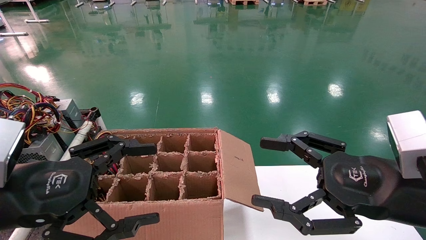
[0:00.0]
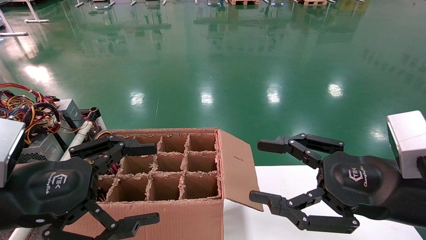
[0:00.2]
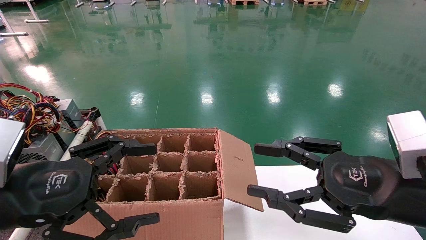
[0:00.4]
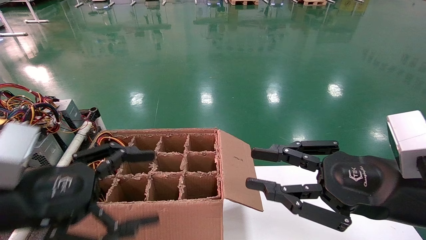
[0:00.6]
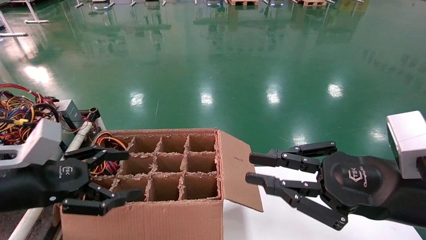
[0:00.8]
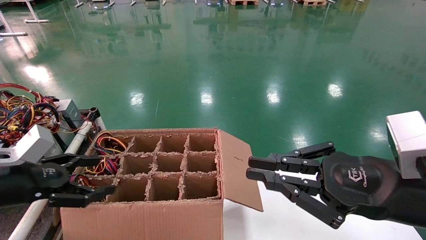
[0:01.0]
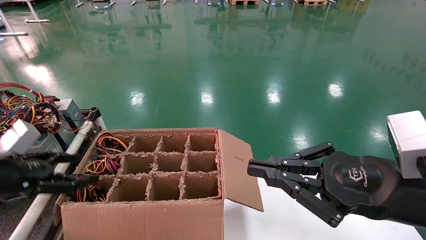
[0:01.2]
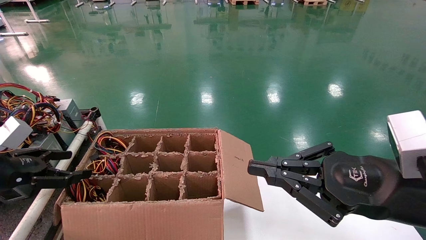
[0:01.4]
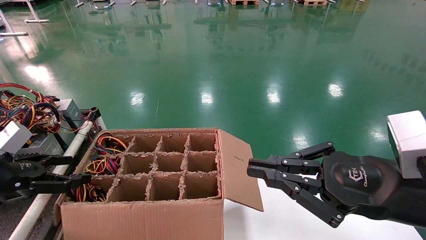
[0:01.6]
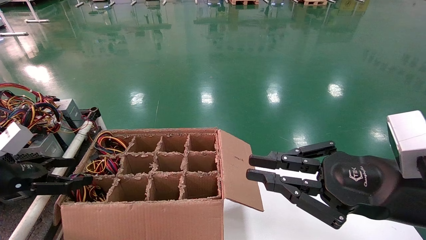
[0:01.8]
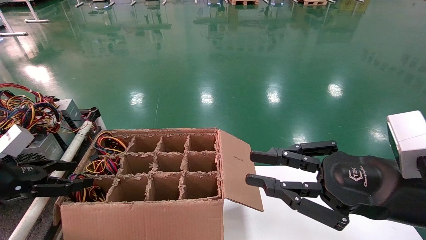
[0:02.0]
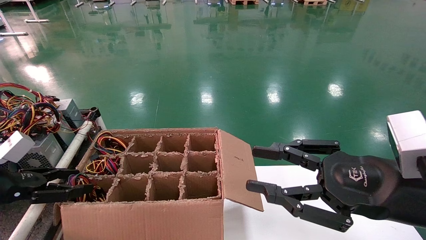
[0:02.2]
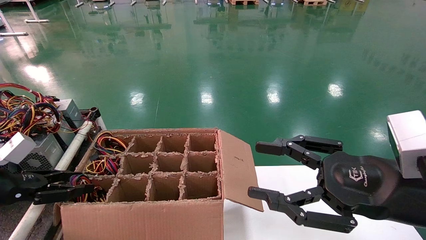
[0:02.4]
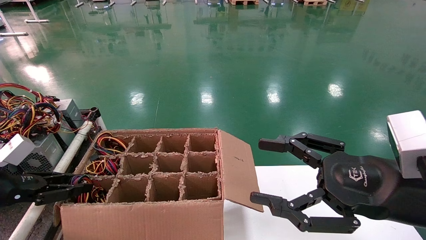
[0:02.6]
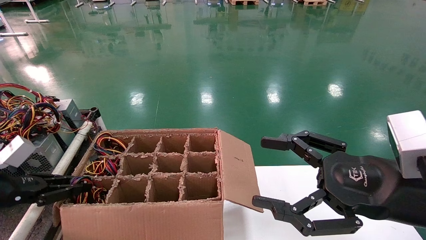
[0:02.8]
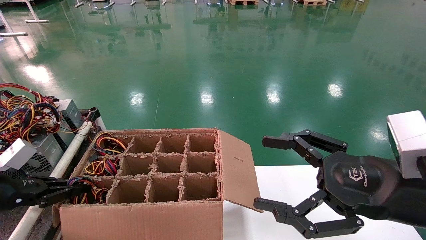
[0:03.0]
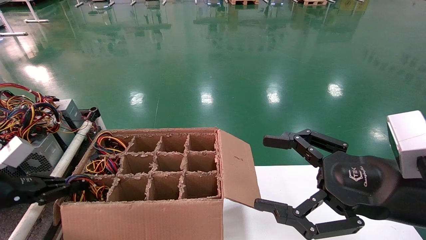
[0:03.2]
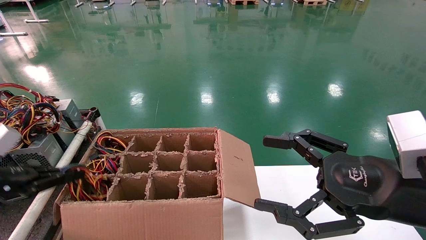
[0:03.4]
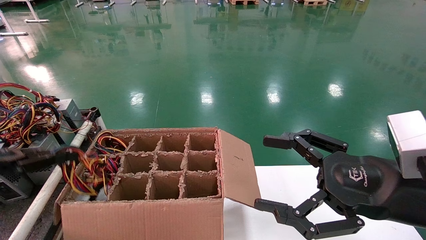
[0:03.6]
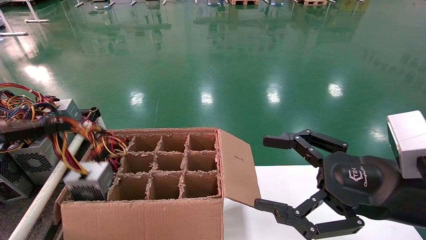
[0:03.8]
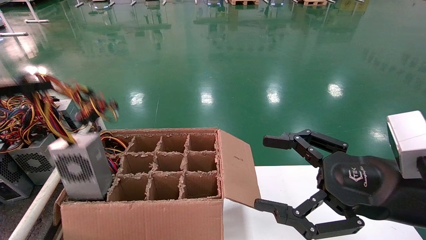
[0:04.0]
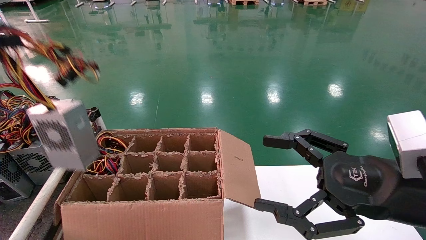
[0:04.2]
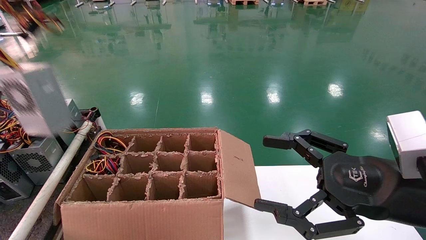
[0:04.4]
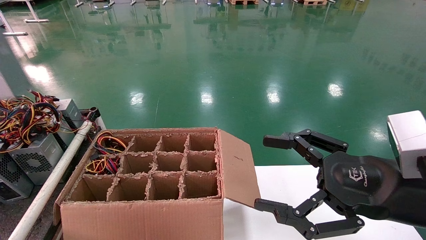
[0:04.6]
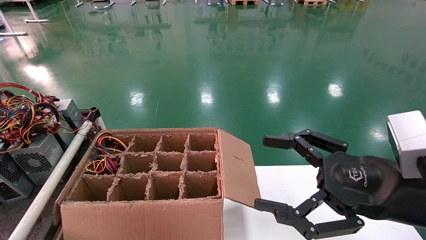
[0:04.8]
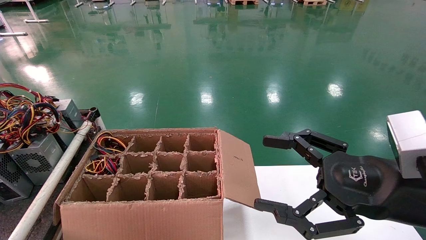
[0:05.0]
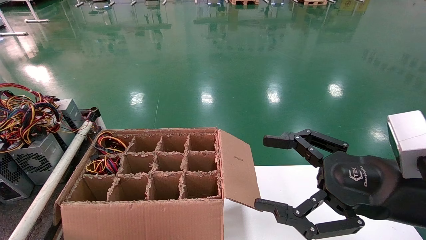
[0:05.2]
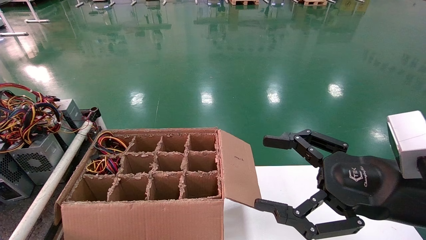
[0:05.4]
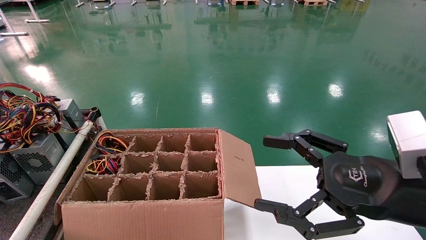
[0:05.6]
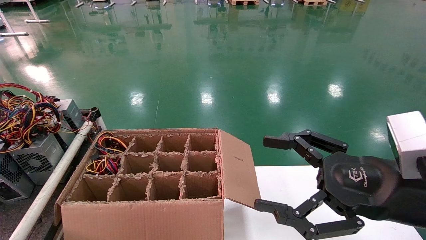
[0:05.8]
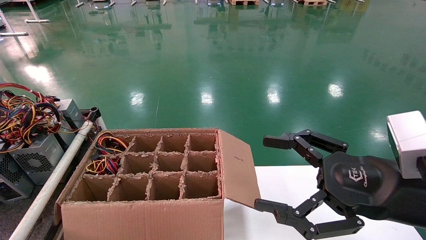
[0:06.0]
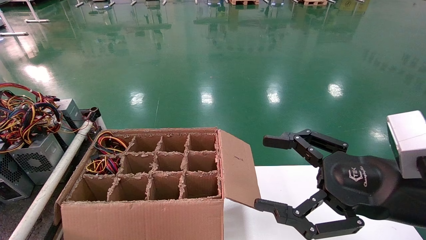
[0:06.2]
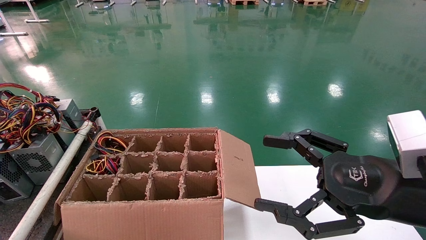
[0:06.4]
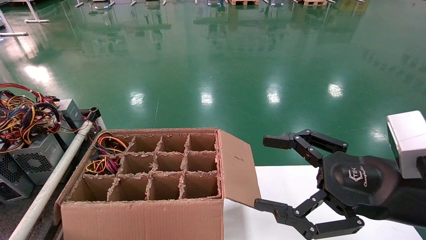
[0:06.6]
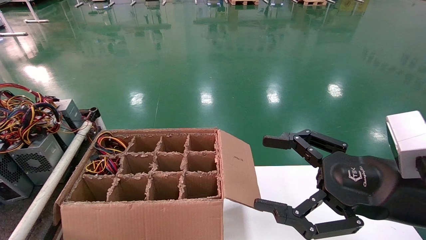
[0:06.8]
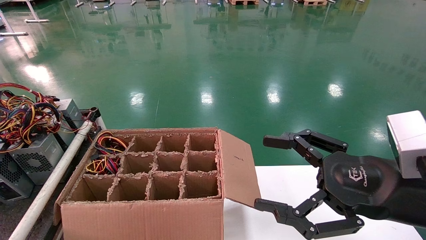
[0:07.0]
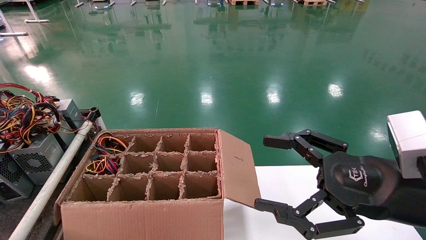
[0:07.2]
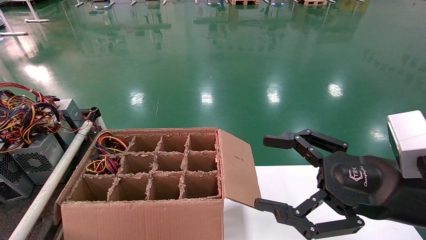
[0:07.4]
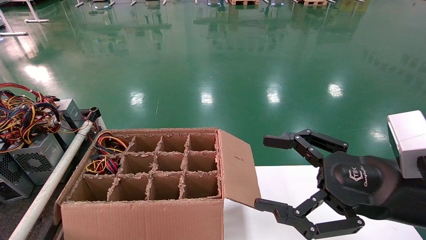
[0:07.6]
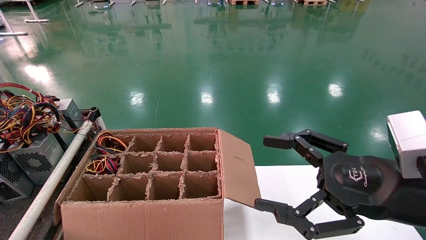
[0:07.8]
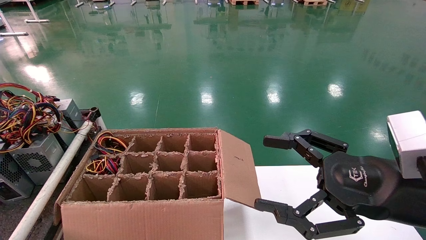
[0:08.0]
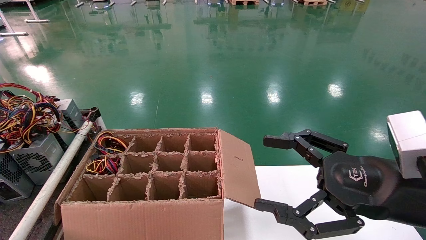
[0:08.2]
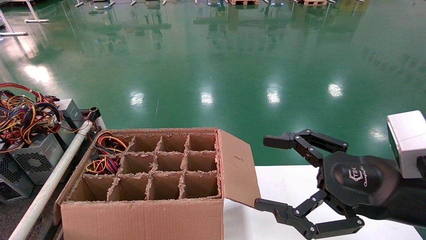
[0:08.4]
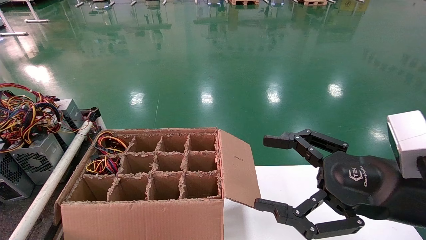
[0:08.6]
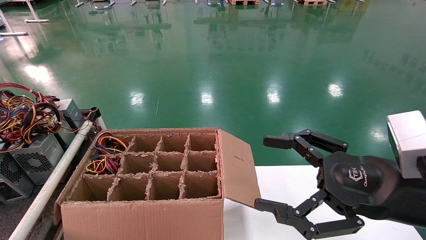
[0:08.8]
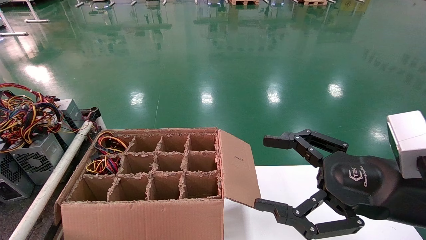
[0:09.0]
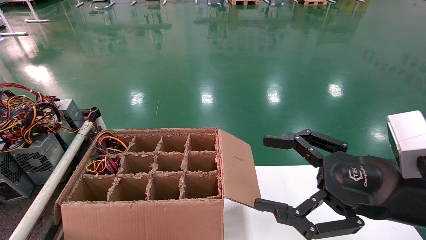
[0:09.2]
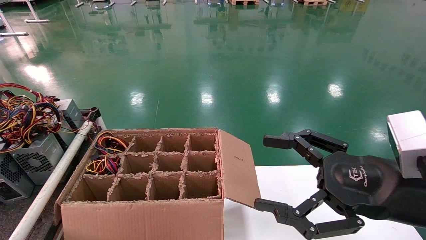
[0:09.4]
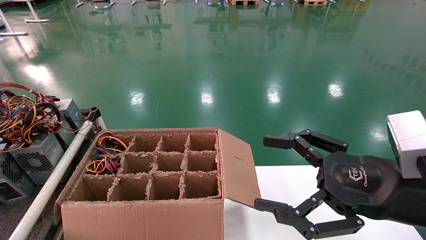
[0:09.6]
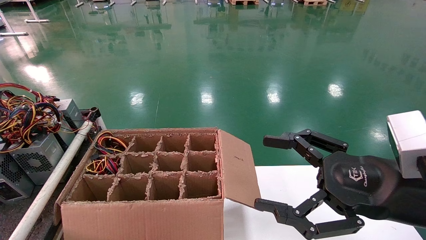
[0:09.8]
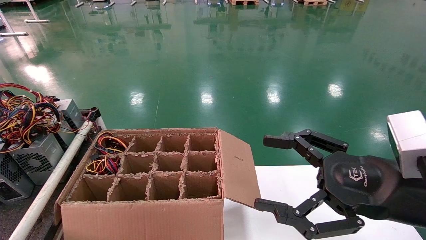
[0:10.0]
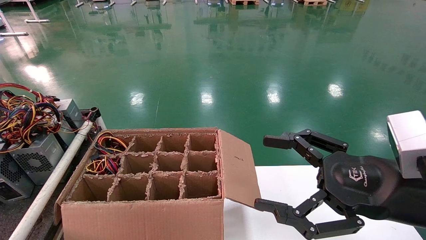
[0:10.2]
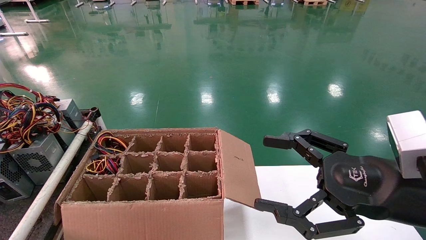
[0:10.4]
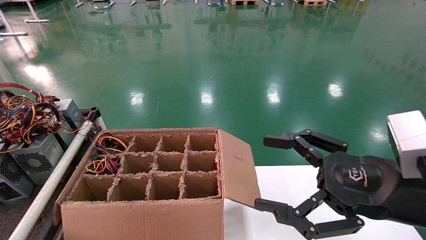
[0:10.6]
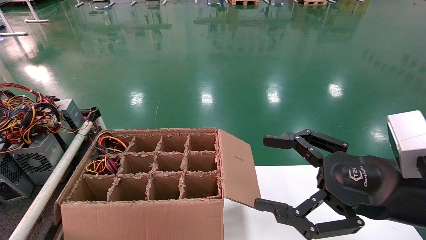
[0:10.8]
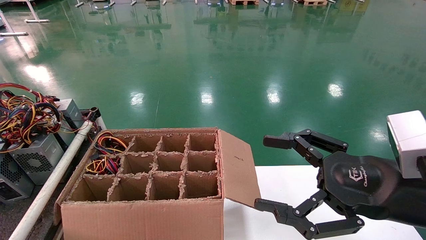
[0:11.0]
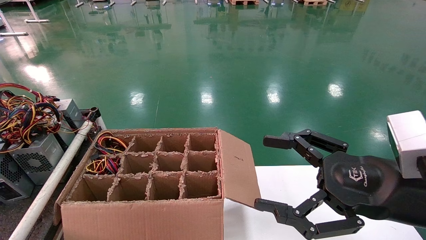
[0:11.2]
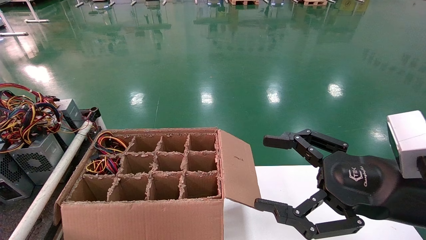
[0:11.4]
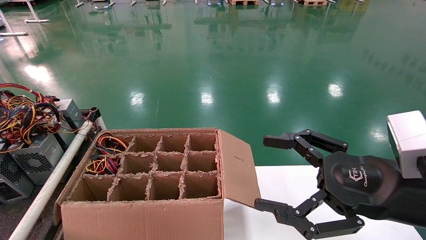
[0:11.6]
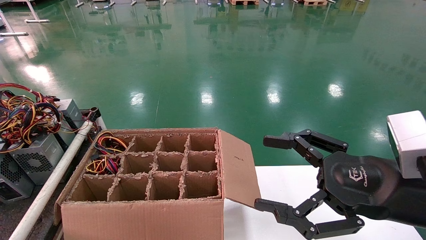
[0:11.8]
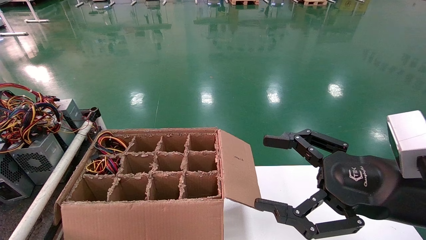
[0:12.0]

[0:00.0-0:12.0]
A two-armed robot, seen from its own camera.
Step, 0:01.0 to 0:03.4: Grab and lift the power supply from the large box.
Step, 0:03.6 to 0:11.2: Place the power supply on the operating table.
0:00.0 to 0:01.6: The right gripper closes up, while the left gripper moves to the left and forward, some 20 cm.
0:01.6 to 0:03.0: The right gripper opens, while the left gripper closes.
0:03.0 to 0:04.4: The left gripper moves upward, roughly 30 cm.
0:04.4 to 0:06.0: The left gripper travels to the left and backward by some 30 cm.

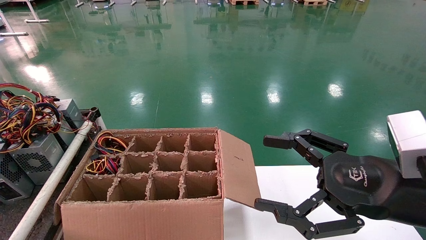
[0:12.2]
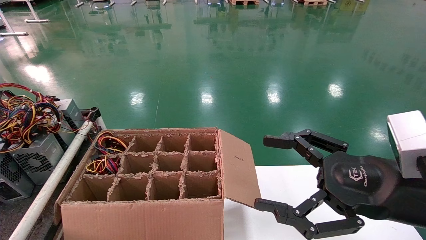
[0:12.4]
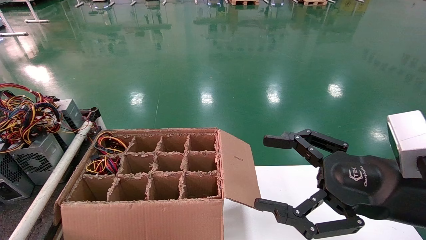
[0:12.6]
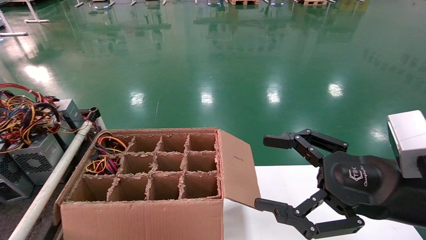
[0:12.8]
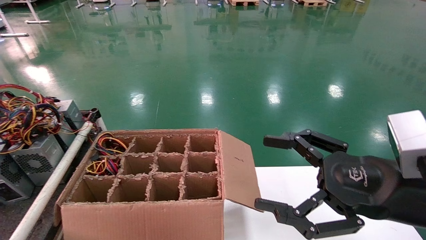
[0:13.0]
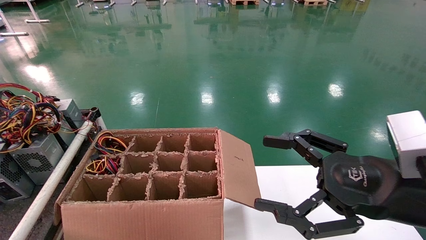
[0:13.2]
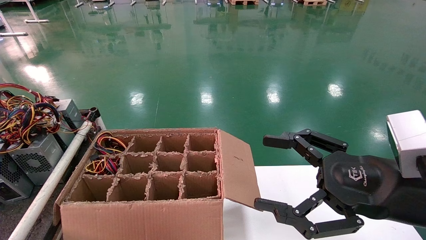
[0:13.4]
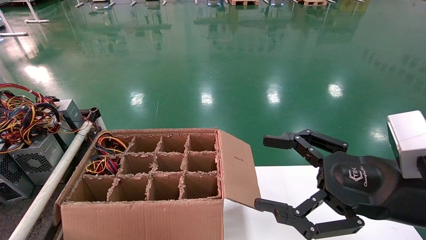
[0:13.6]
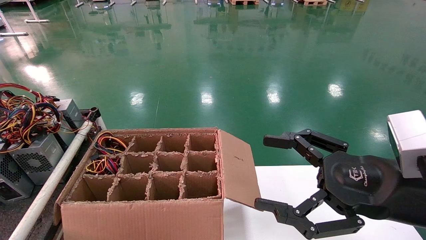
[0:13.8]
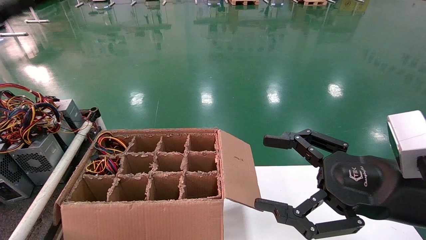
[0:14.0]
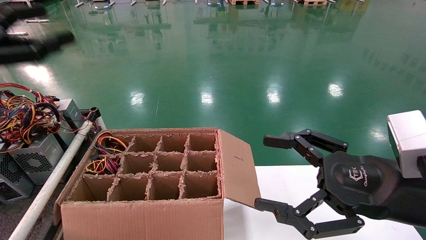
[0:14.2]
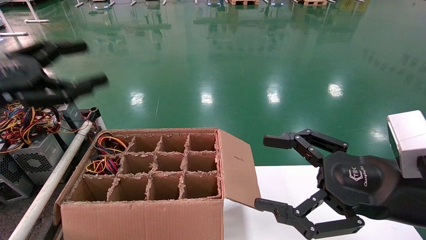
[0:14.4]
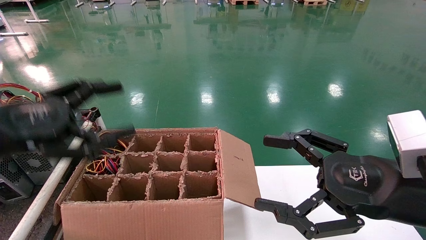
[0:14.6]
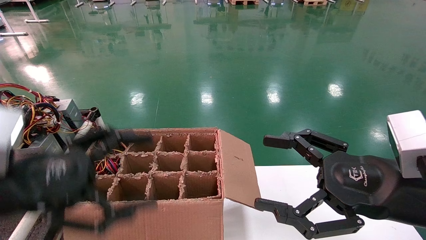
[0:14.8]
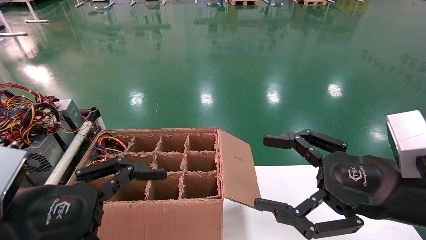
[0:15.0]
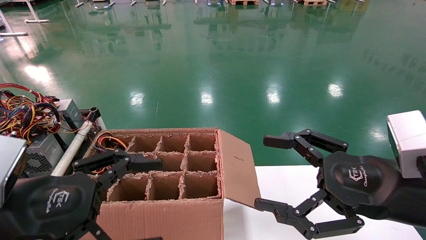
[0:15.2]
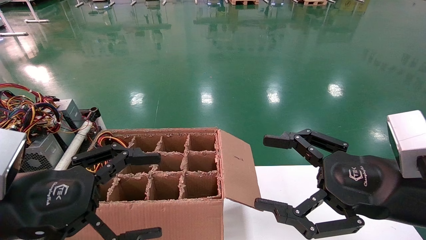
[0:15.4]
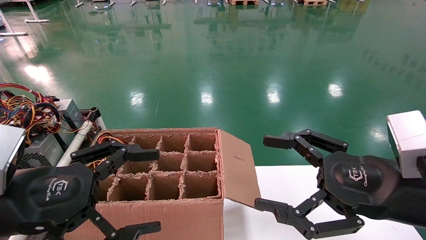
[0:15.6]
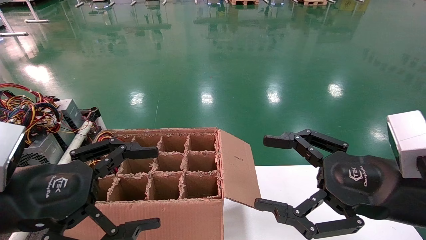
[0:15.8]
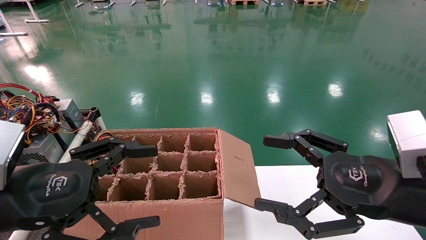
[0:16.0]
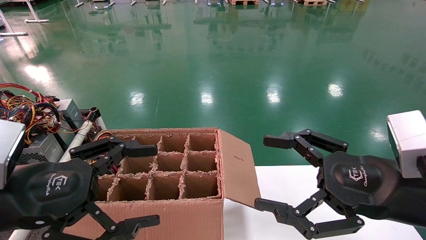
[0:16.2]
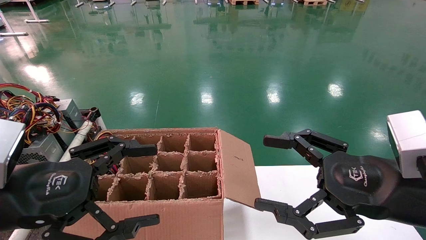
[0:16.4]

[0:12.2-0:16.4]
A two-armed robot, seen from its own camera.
0:13.6 to 0:15.0: The left gripper moves to the right and downward, some 35 cm.
0:15.0 to 0:16.4: Both grippers stay about where they are.
